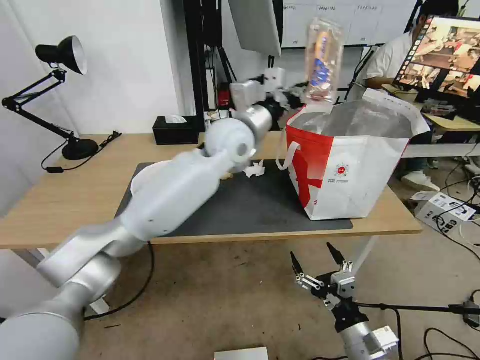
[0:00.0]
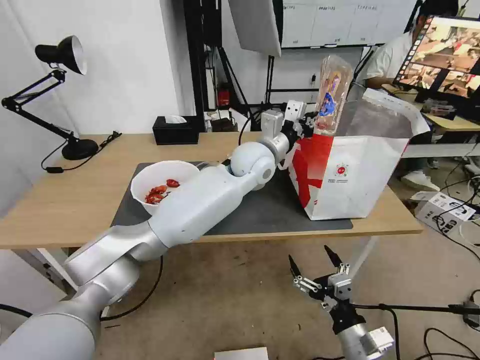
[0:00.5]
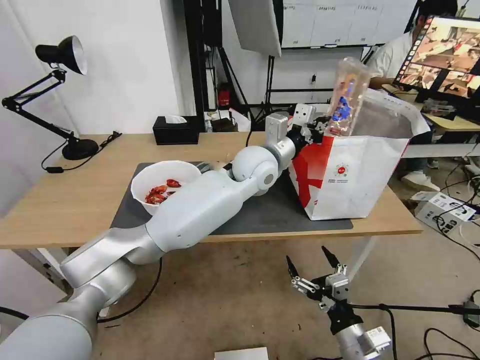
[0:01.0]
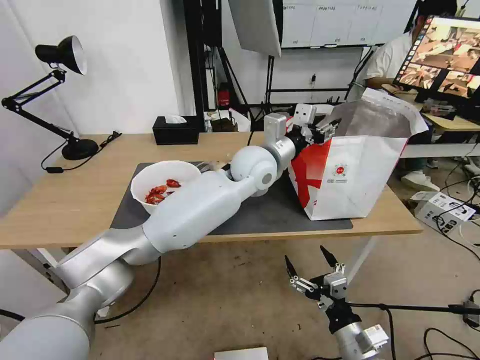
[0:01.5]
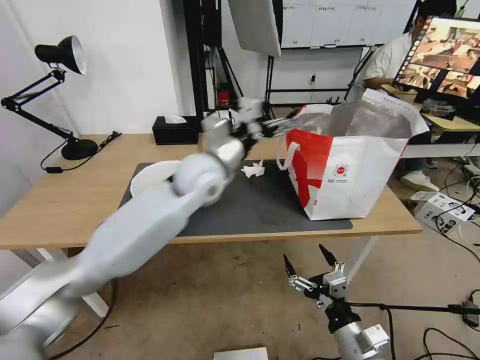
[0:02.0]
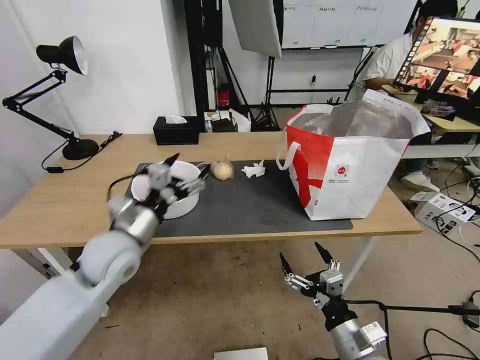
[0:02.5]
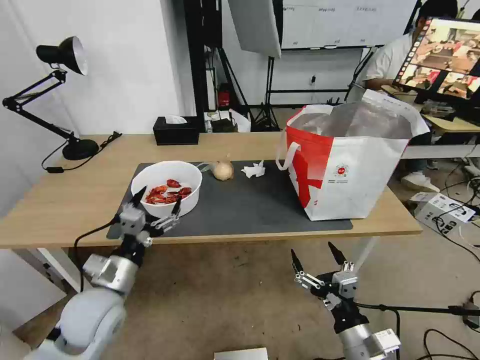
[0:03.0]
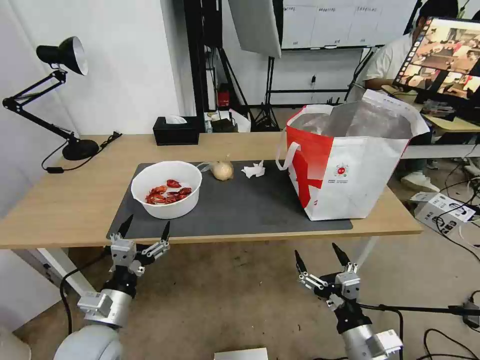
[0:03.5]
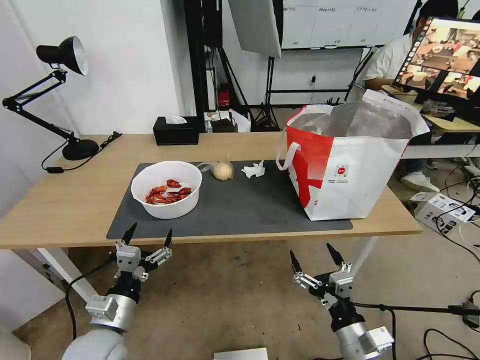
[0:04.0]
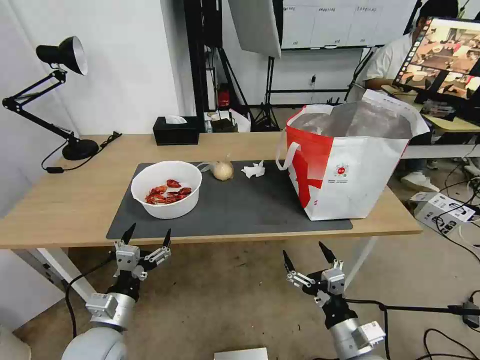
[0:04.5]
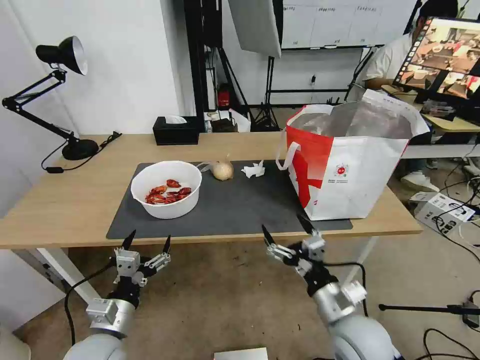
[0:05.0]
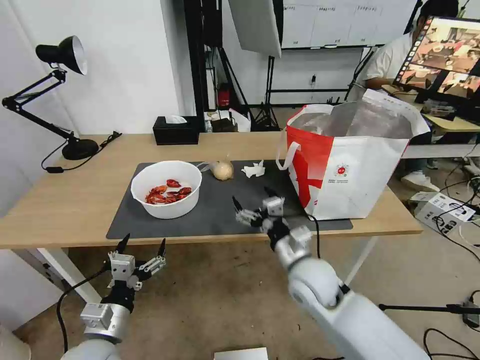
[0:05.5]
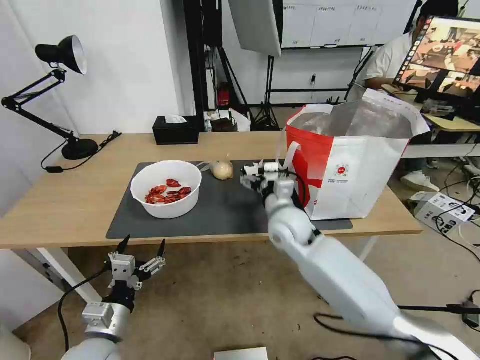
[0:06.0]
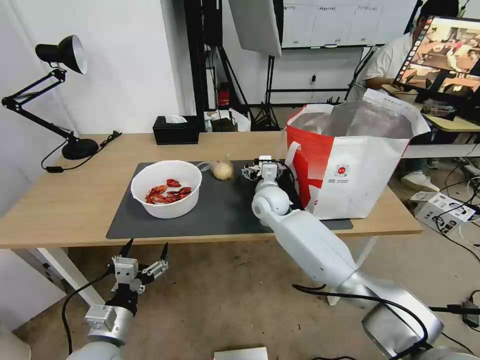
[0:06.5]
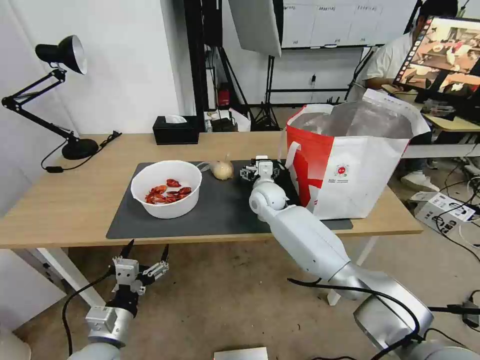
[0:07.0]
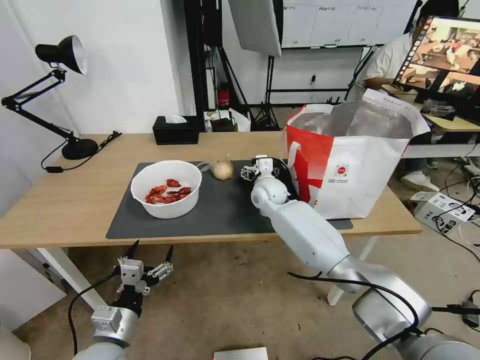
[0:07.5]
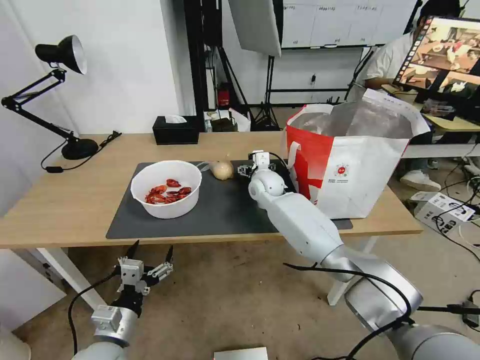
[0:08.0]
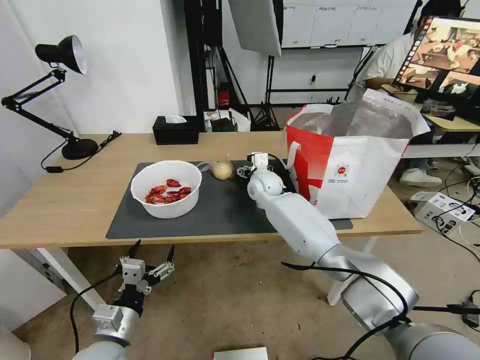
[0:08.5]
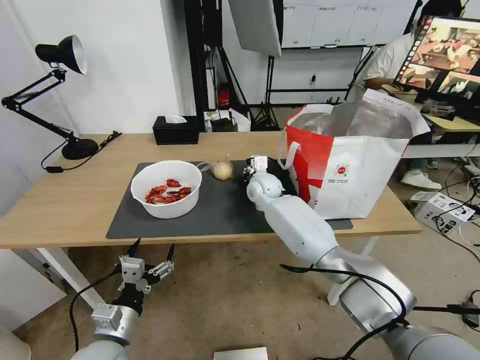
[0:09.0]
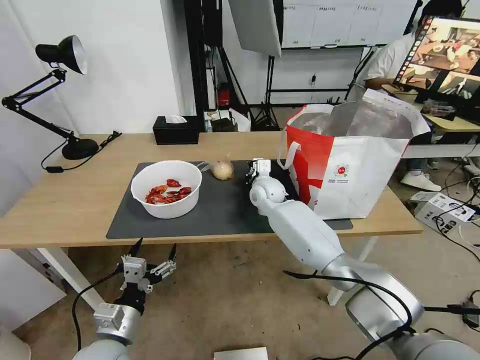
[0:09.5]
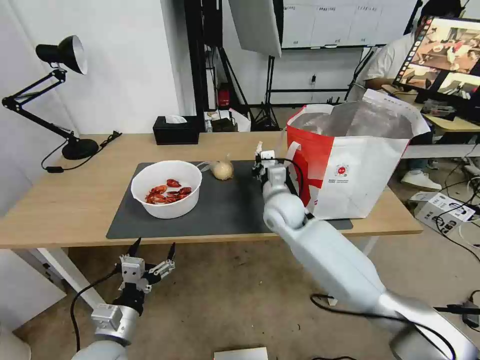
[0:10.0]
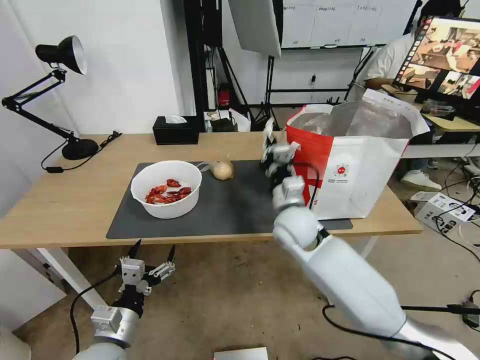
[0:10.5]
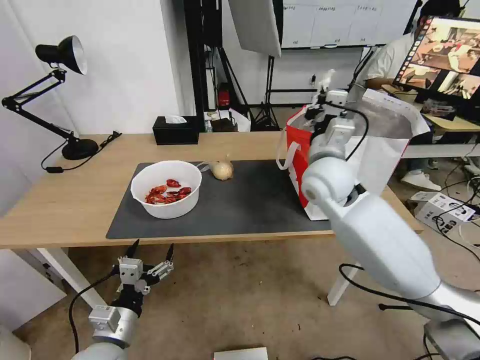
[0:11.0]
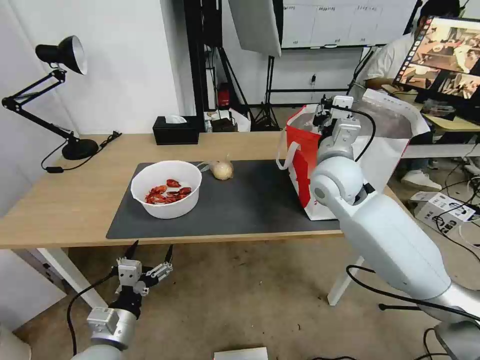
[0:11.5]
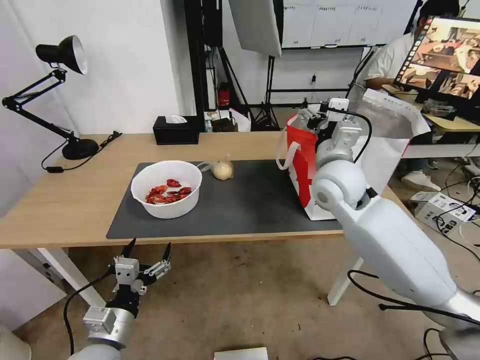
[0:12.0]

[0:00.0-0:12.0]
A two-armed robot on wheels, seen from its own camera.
Task of the whole recording: Pick up the trash from the table and place it into the takeout bag.
0:00.0 to 0:02.0: The left gripper is displaced to the left, backward and downward by some 10 cm, and opens its fingers.
0:02.0 to 0:04.0: The left gripper travels backward, downward and to the left by roughly 35 cm.
0:04.0 to 0:06.0: The right gripper heads forward and to the left, covering approximately 30 cm.
0:06.0 to 0:08.0: The right gripper is displaced forward by about 15 cm.
0:08.0 to 0:10.0: The right gripper travels backward by some 10 cm, and closes.
0:10.0 to 0:12.0: The right gripper moves upward and to the right, some 15 cm, and opens up.

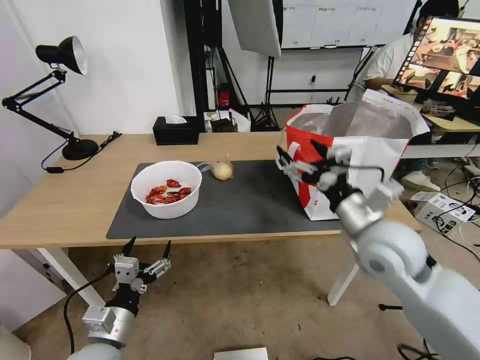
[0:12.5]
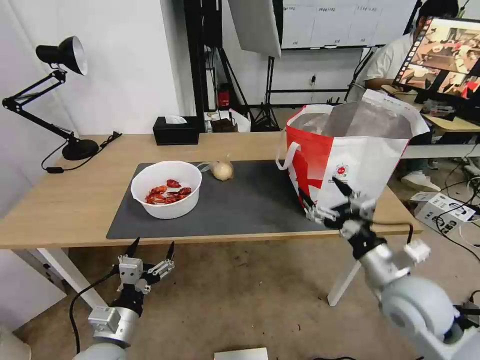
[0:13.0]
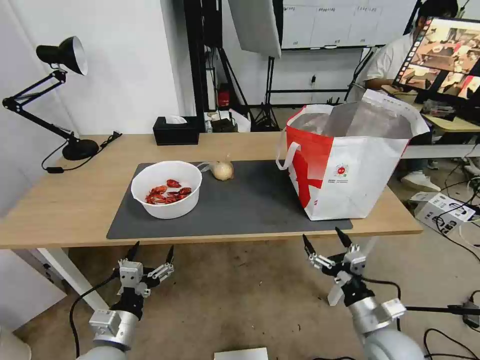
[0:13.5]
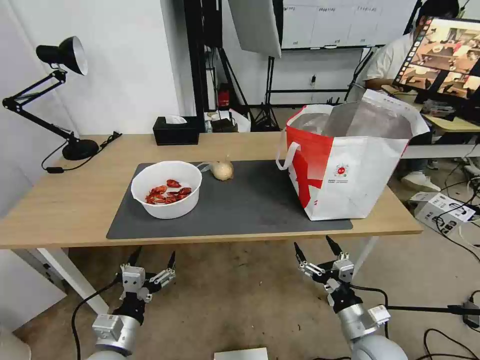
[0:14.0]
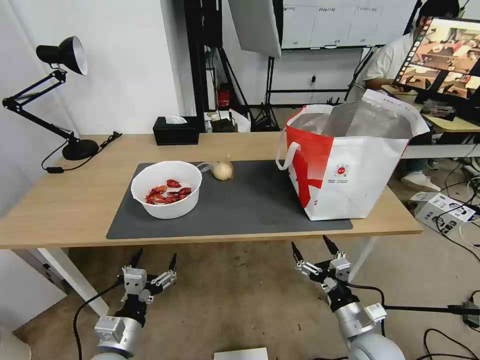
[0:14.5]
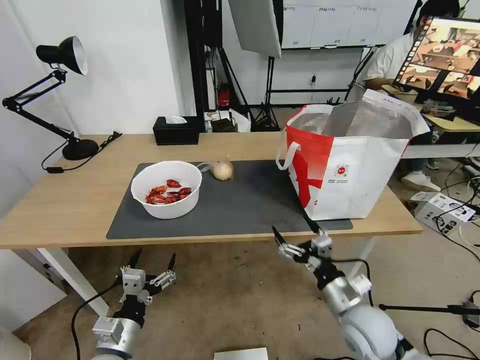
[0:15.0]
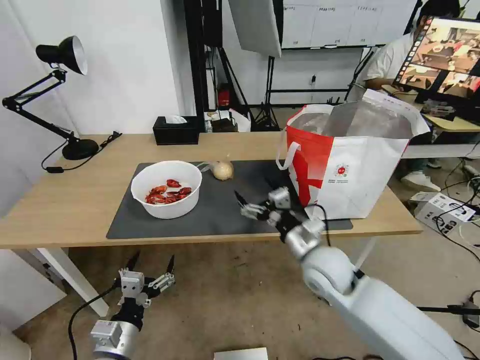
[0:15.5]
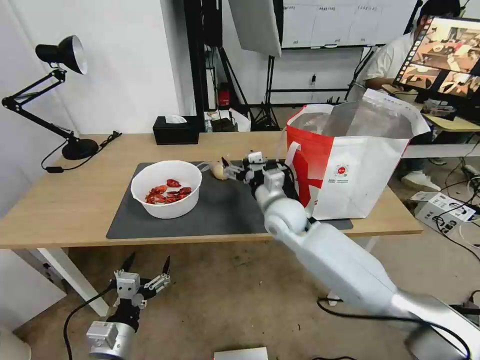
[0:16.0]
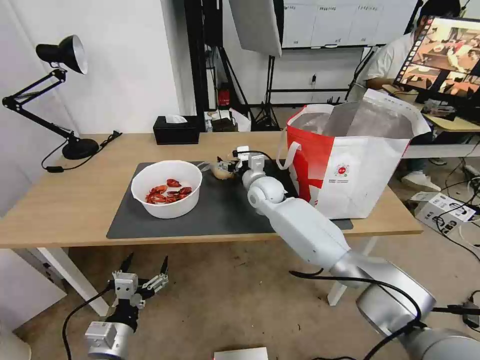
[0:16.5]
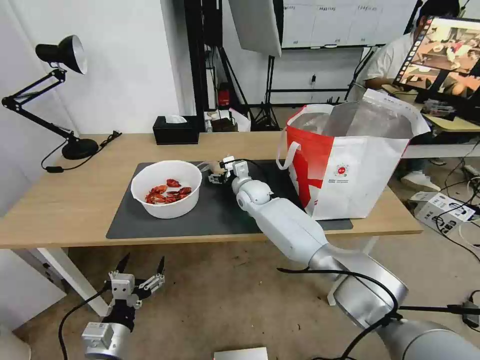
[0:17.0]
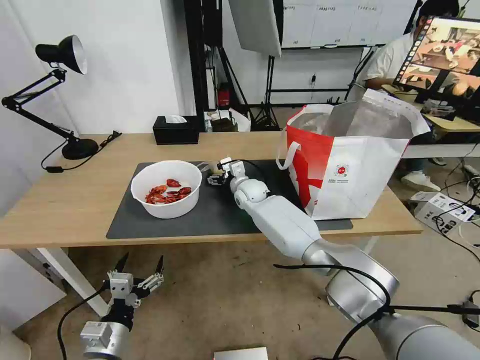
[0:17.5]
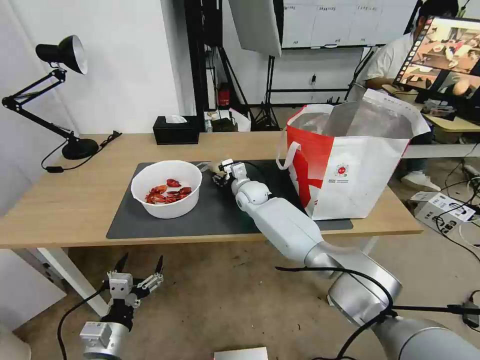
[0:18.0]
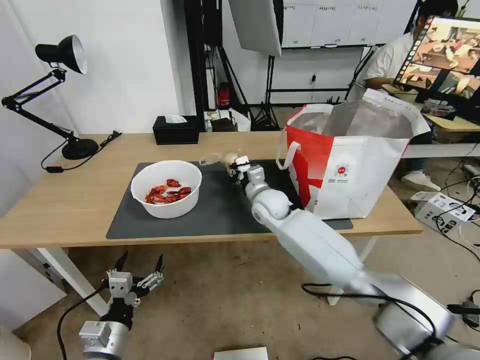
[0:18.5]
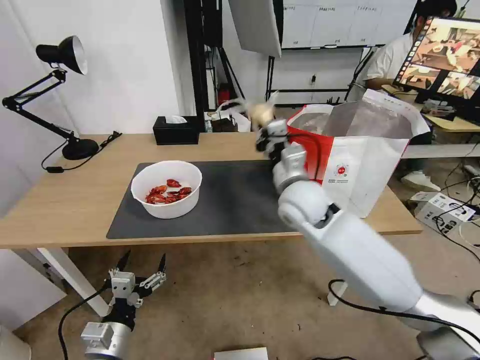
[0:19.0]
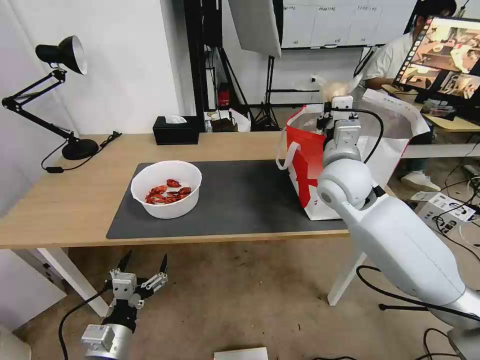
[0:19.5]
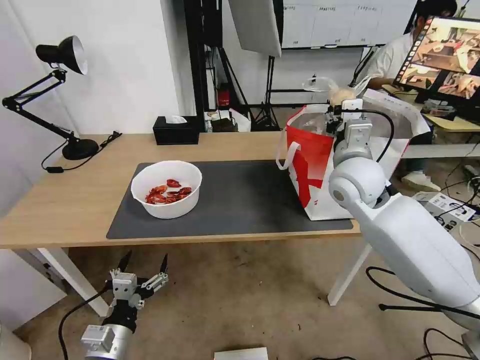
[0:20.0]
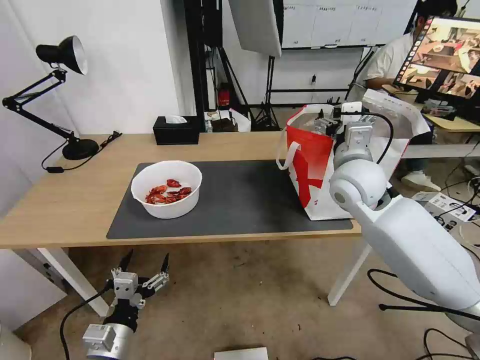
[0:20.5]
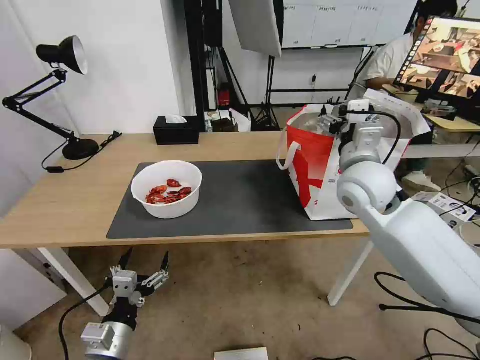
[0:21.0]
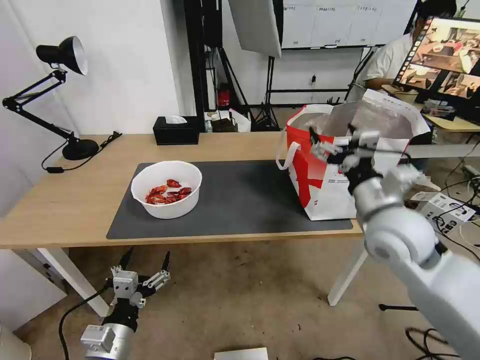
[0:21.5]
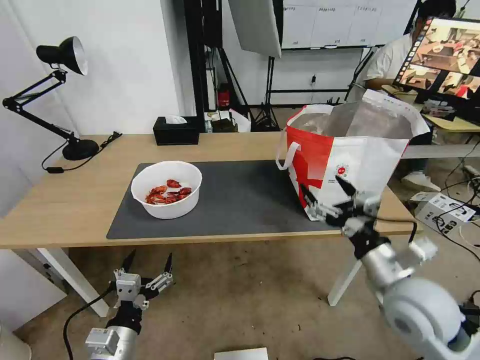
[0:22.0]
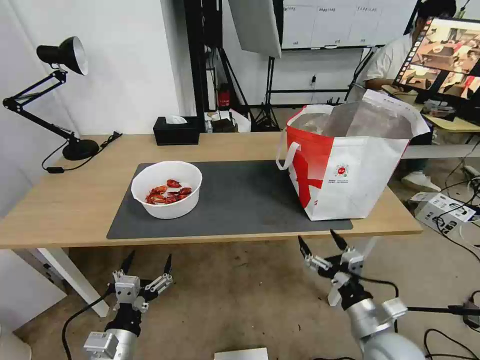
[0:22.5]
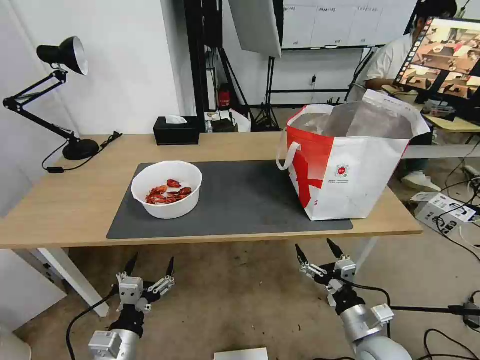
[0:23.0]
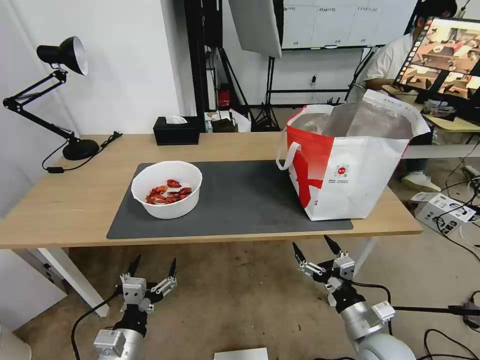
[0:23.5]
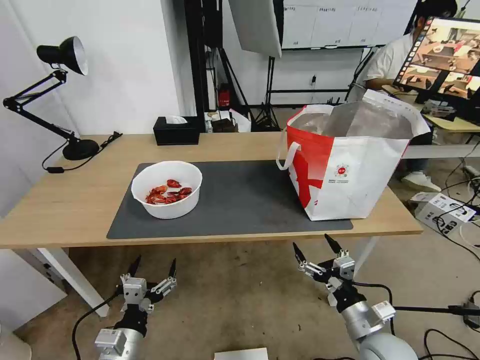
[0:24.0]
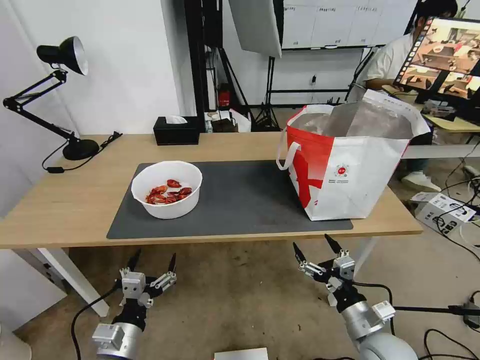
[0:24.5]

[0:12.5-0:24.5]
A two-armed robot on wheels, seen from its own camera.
Task of the whole recording: Pick up the trash from the table and place it into the takeout bag.
0:12.5 to 0:14.5: The right gripper moves downward and backward, some 25 cm.
0:14.5 to 0:16.5: The right gripper is displaced forward and to the left by about 40 cm.
0:16.5 to 0:18.5: The right gripper closes up.
0:18.5 to 0:20.5: The right gripper shifts approximately 25 cm upward, to the right and backward, and opens its fingers.
0:20.5 to 0:22.5: The right gripper goes approximately 30 cm backward and downward.

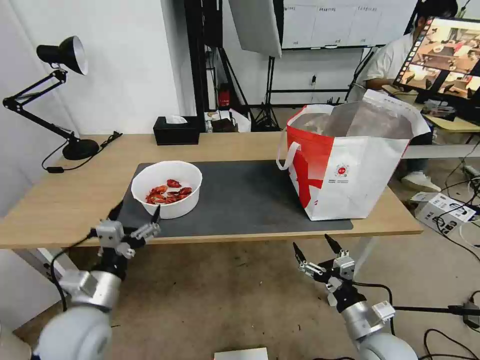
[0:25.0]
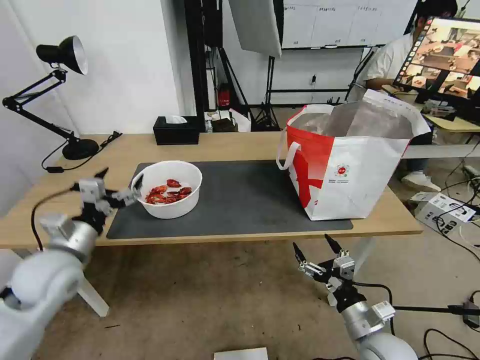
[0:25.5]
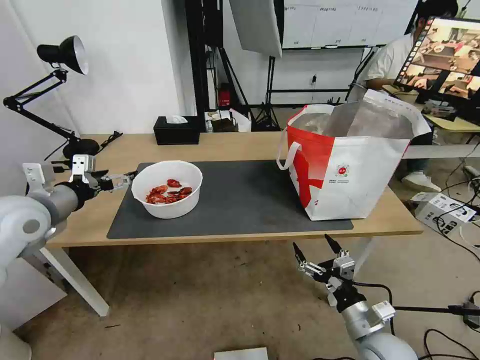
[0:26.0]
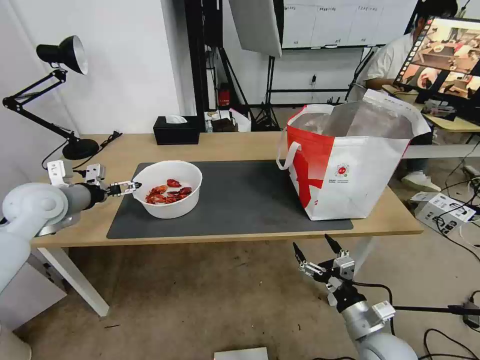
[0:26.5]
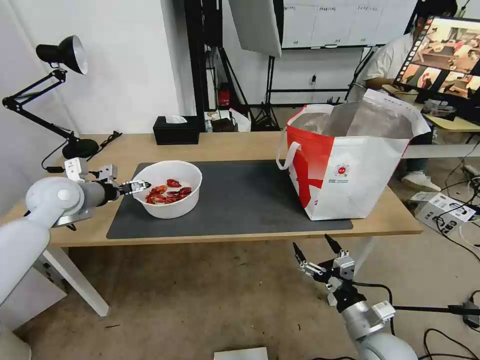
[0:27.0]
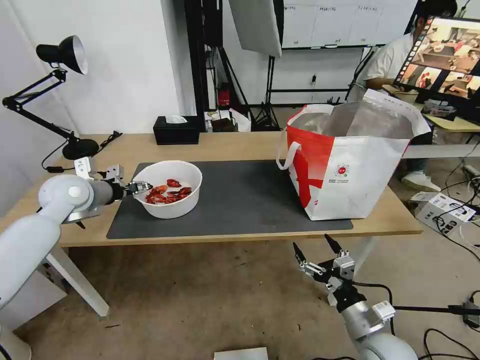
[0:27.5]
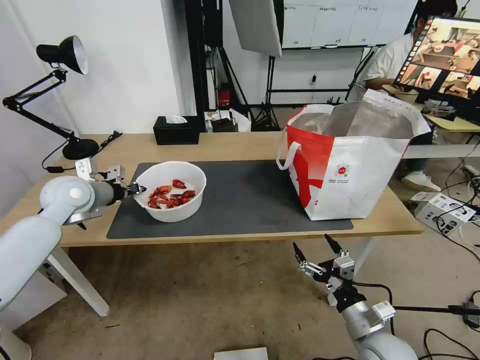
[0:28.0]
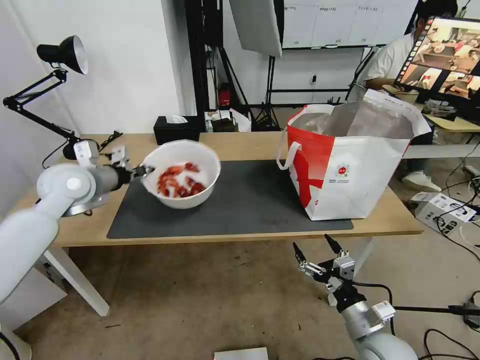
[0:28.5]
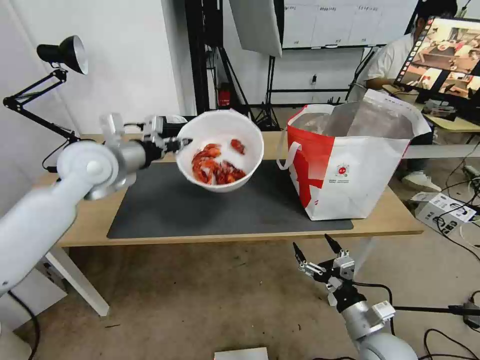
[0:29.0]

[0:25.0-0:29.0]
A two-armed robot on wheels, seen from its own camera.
Task of the whole recording: Pick up the trash from the table and place it into the takeout bag.
0:25.0 to 0:27.0: The left gripper goes some 30 cm forward, to the left and upward.
0:27.0 to 0:29.0: The left gripper travels to the right and upward by approximately 15 cm, and closes its fingers.
